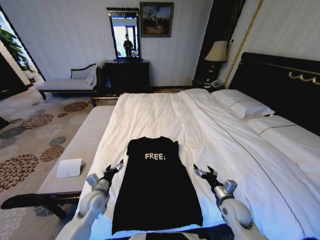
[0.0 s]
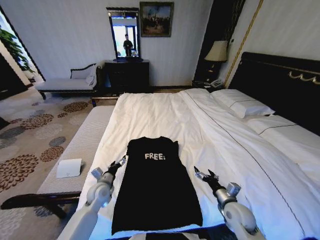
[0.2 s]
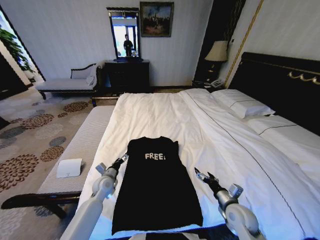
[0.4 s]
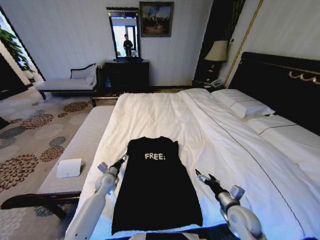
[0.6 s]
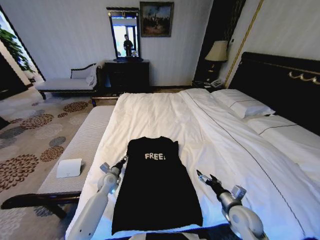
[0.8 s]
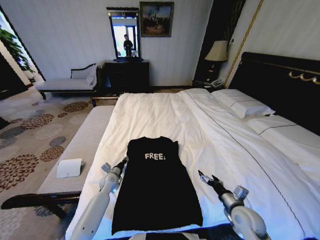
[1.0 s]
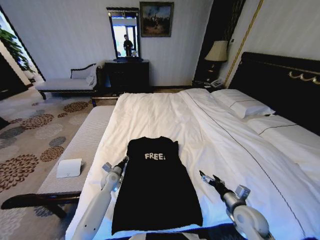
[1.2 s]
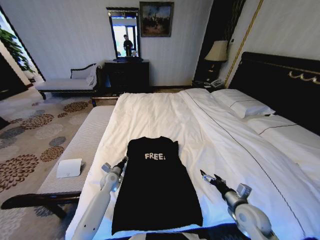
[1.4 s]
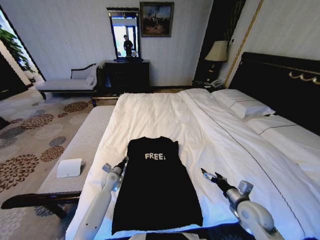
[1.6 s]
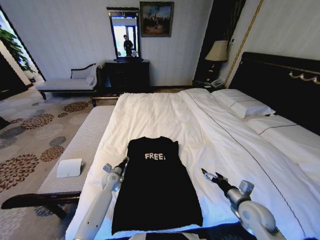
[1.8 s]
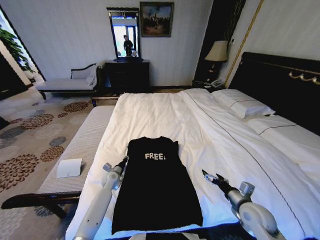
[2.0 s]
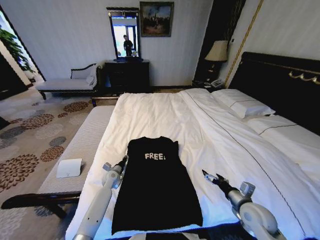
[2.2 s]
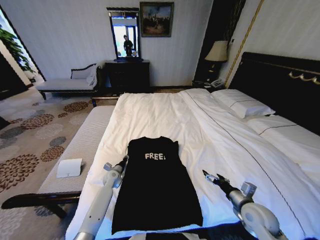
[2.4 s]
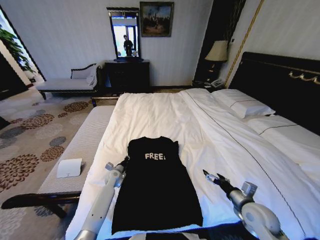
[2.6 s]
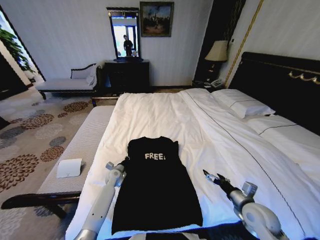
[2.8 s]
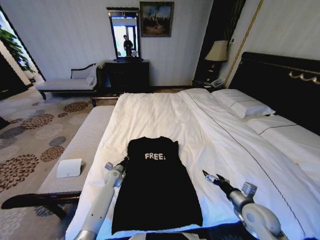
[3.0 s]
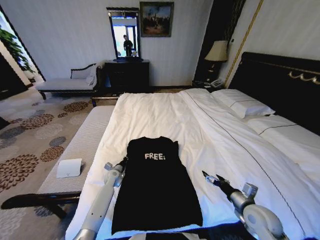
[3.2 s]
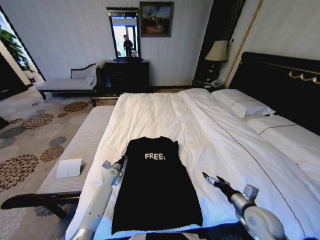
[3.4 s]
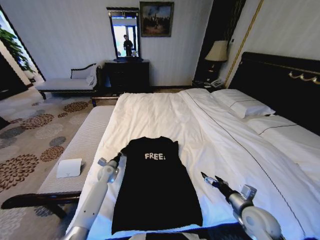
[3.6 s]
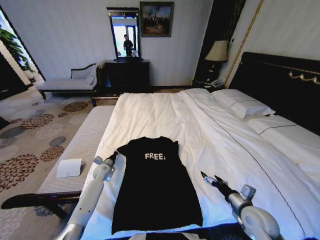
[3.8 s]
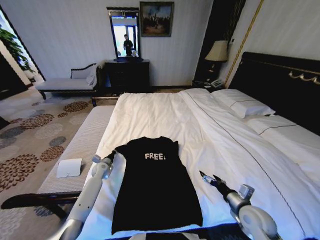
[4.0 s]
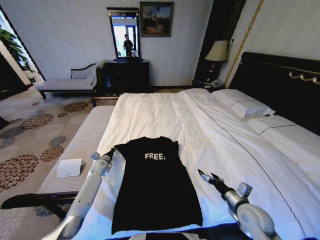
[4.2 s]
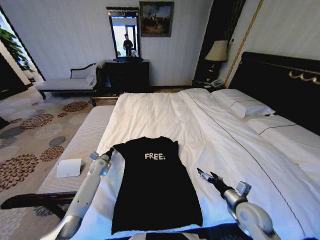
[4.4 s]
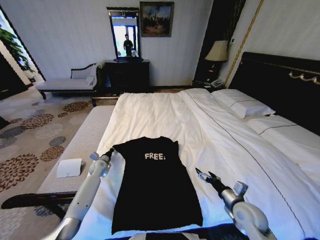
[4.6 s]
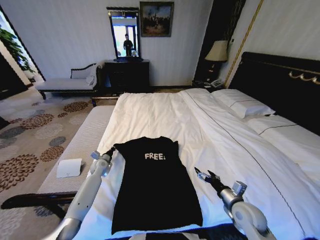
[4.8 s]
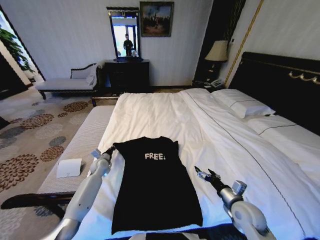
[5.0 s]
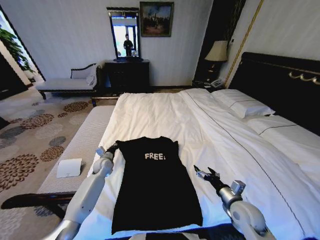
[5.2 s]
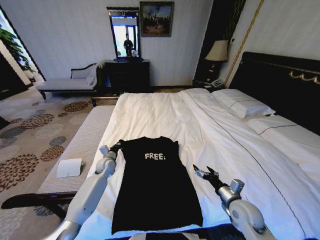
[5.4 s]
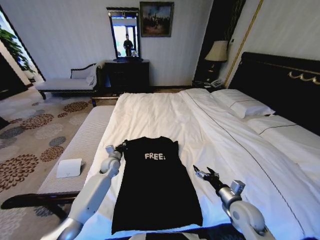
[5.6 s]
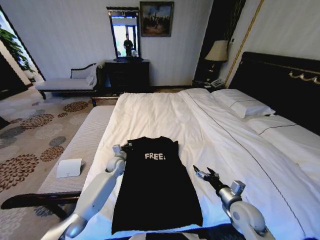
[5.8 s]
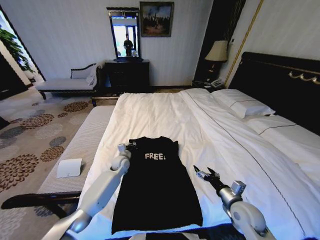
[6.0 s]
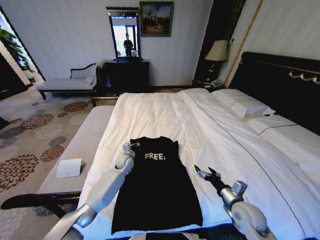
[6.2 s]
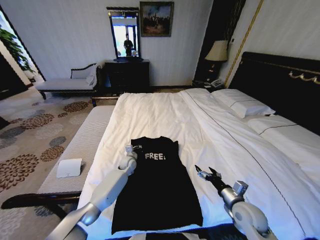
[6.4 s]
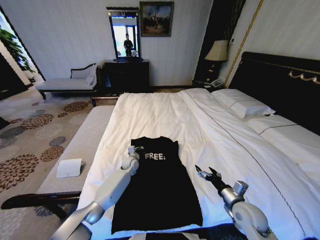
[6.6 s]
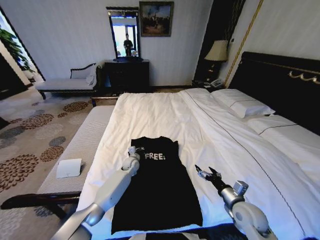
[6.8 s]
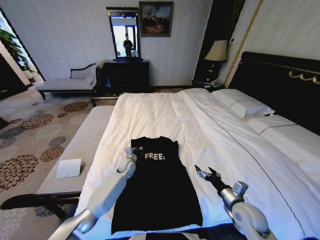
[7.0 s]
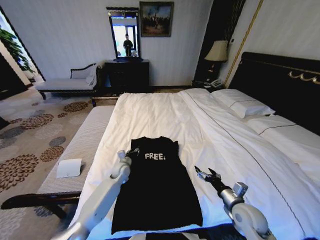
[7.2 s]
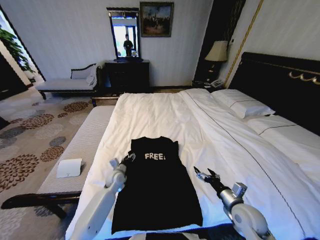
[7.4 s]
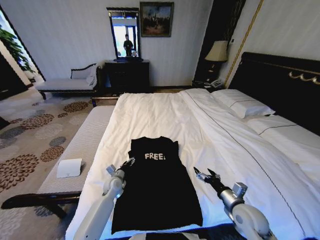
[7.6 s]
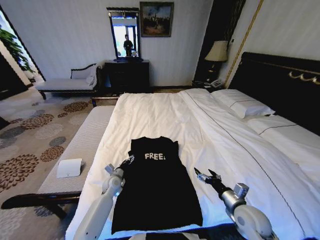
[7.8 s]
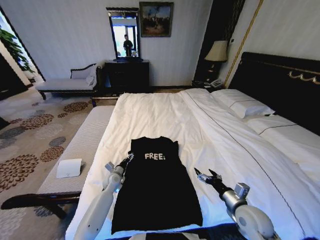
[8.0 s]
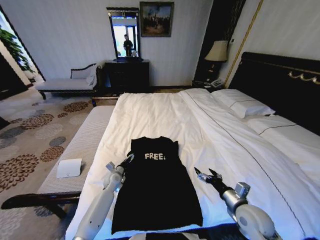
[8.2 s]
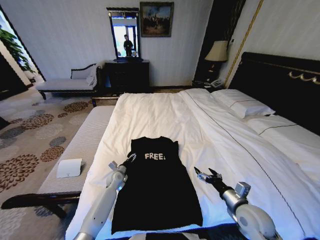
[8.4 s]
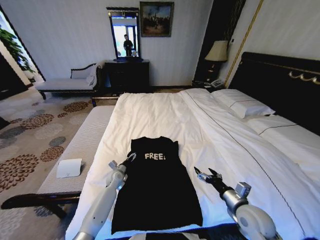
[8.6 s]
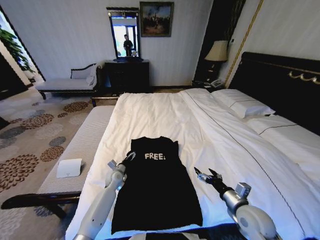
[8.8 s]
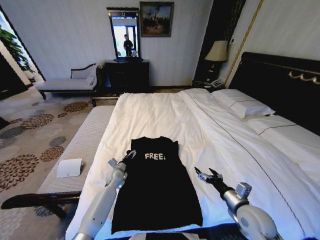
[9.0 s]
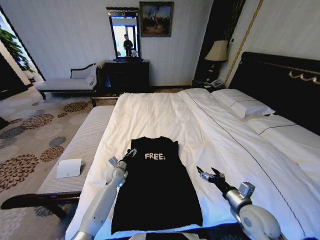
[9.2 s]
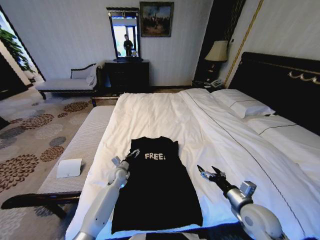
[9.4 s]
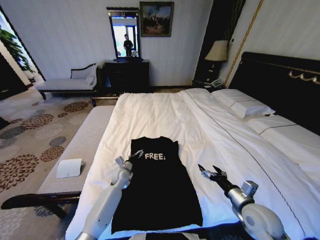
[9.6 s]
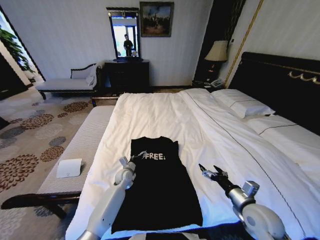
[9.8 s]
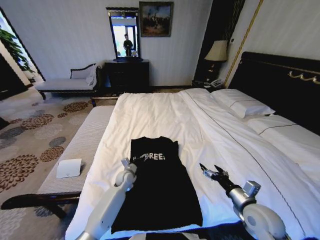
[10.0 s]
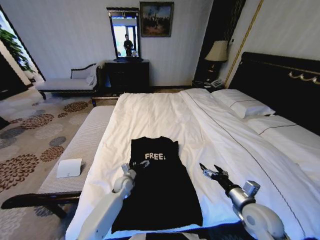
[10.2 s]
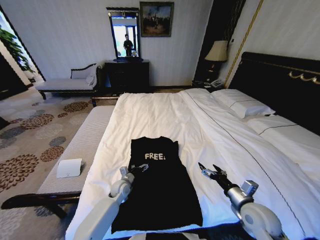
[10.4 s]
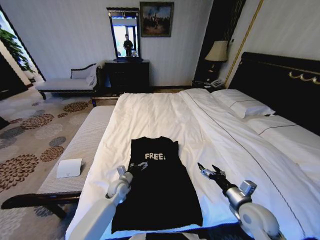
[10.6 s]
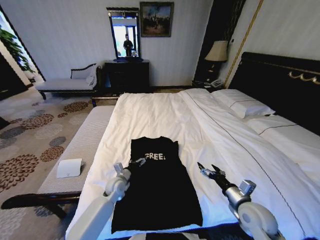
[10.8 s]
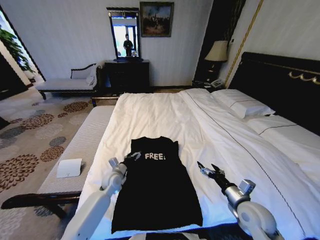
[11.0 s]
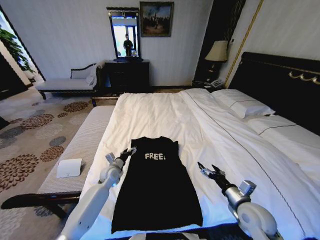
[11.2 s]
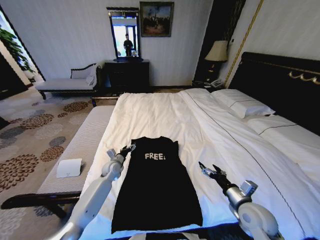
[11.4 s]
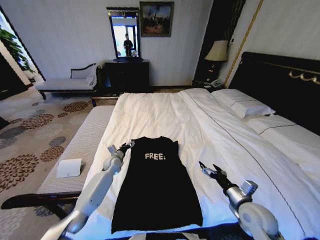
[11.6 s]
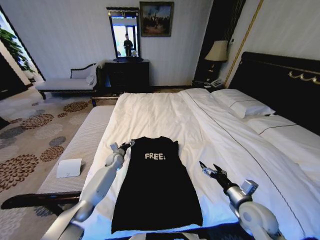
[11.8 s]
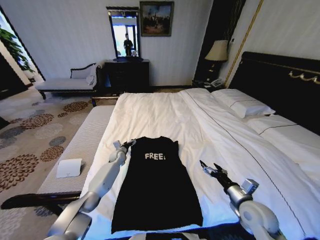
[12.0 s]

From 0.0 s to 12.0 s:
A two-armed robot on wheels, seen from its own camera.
Task of the whole recording: Fold the clothes on the bed.
From 0.0 s to 1.6 s: The left gripper moves forward and downward, roughly 15 cm, and closes; the right gripper ends up some 5 cm from where it was.
From 1.6 s to 3.0 s: The left gripper closes.
From 3.0 s to 4.4 s: The left gripper heads to the left, covering roughly 10 cm.
From 4.4 s to 6.0 s: The left gripper heads to the right, covering roughly 15 cm.
From 6.0 s to 7.6 s: The left gripper is displaced backward and downward by approximately 10 cm, and opens up.
From 7.6 s to 9.0 s: There are only small adjustments of the grippers.
From 9.0 s to 10.4 s: The left gripper shifts some 5 cm backward.
From 10.4 s to 12.0 s: The left gripper shifts approximately 20 cm forward.

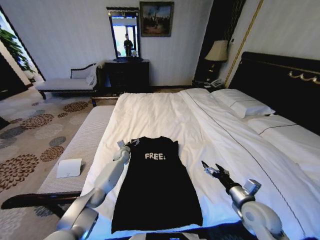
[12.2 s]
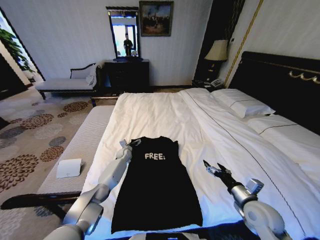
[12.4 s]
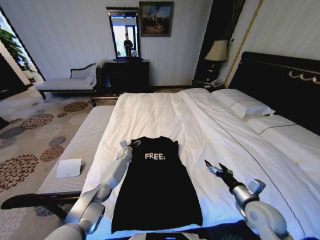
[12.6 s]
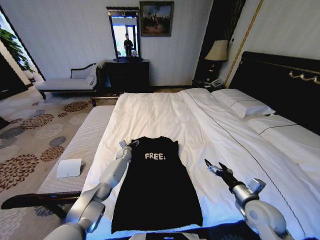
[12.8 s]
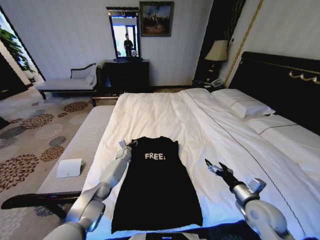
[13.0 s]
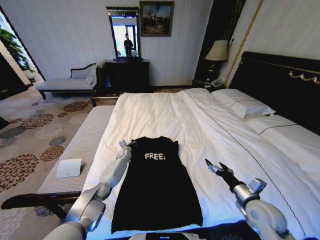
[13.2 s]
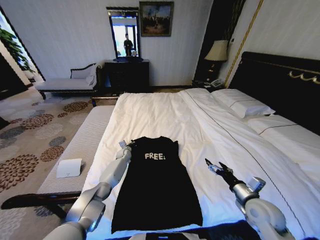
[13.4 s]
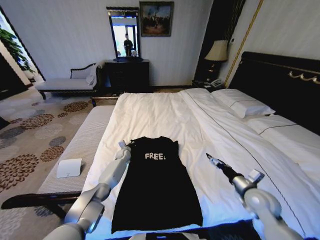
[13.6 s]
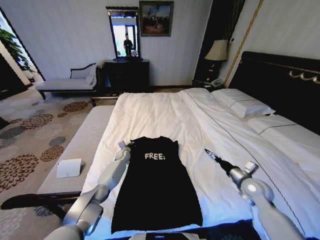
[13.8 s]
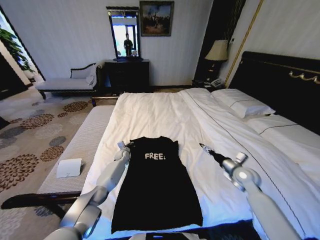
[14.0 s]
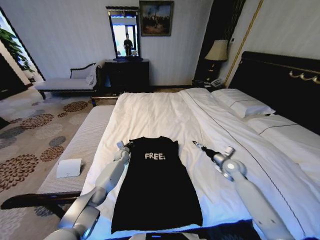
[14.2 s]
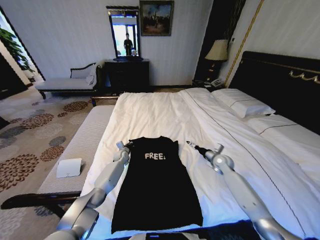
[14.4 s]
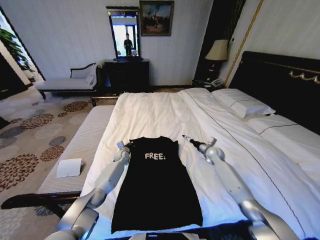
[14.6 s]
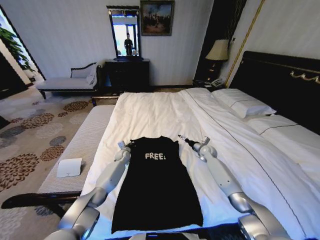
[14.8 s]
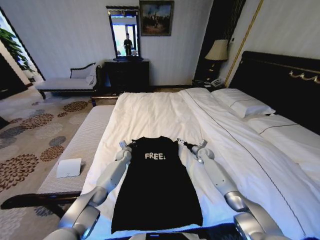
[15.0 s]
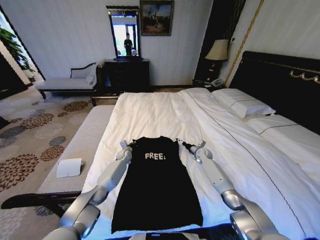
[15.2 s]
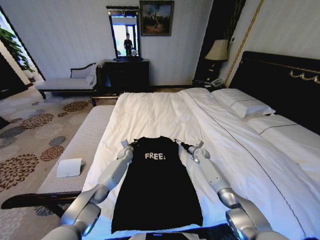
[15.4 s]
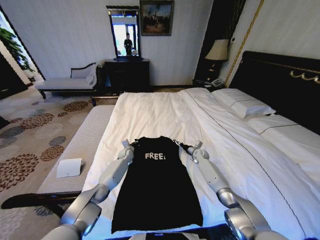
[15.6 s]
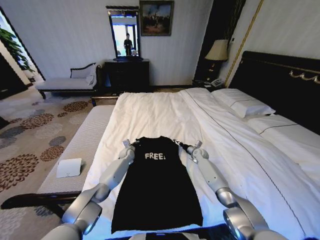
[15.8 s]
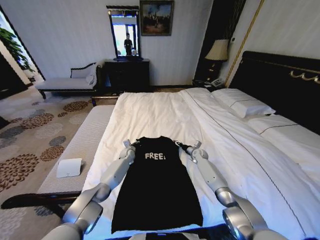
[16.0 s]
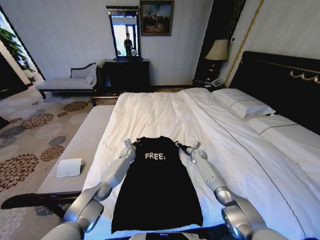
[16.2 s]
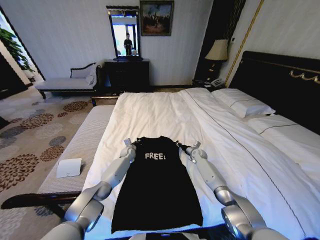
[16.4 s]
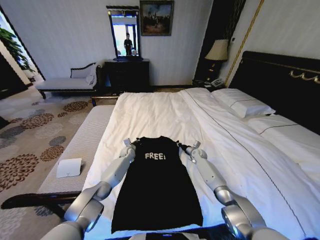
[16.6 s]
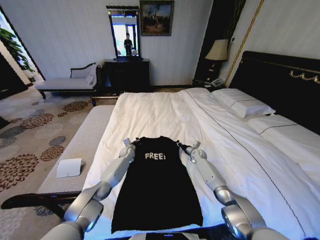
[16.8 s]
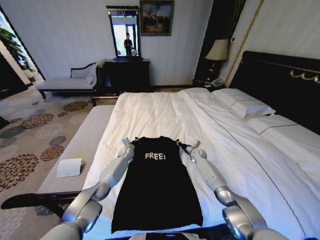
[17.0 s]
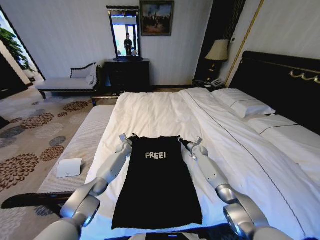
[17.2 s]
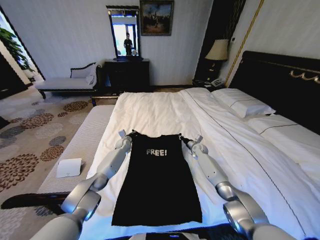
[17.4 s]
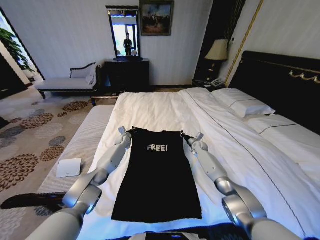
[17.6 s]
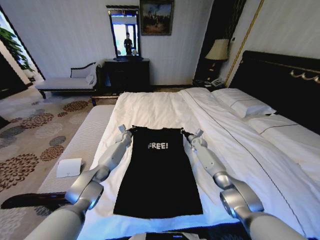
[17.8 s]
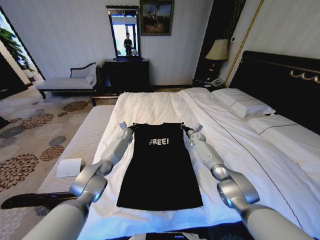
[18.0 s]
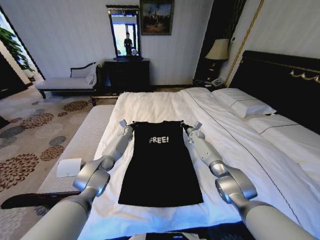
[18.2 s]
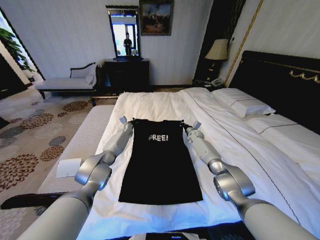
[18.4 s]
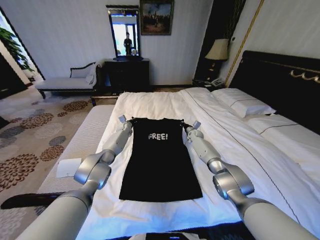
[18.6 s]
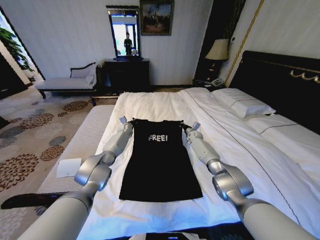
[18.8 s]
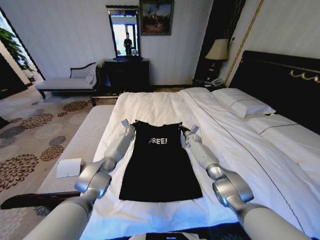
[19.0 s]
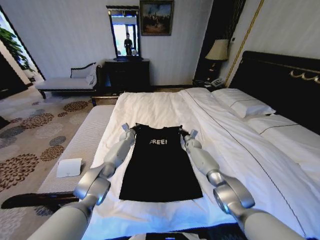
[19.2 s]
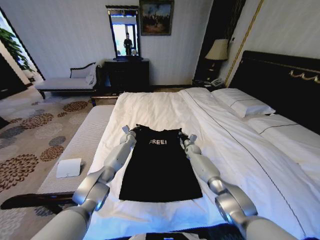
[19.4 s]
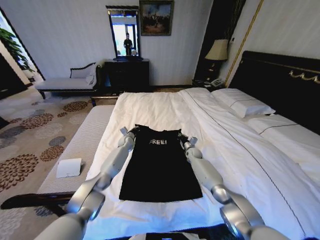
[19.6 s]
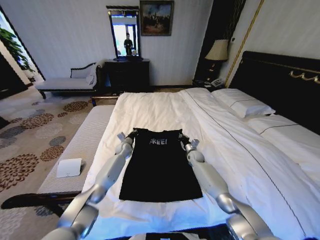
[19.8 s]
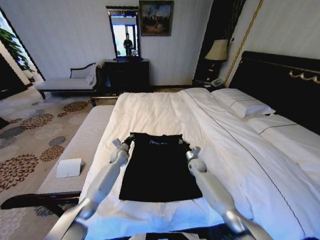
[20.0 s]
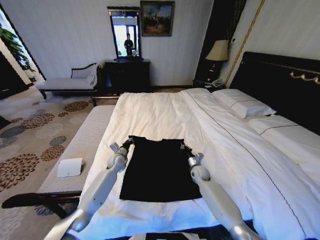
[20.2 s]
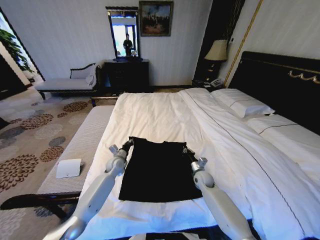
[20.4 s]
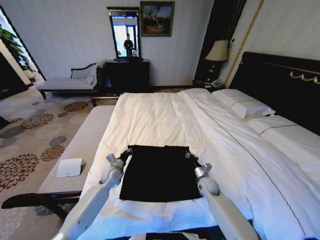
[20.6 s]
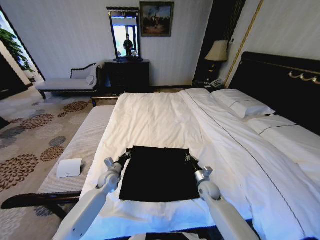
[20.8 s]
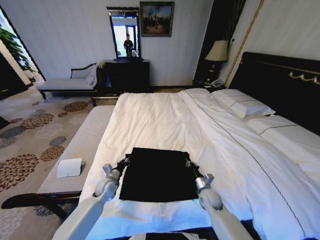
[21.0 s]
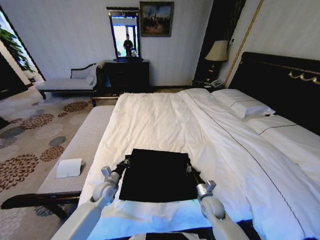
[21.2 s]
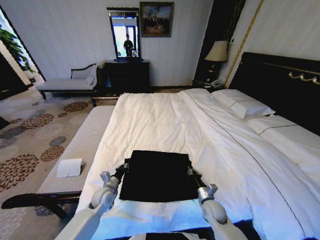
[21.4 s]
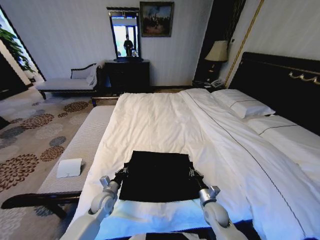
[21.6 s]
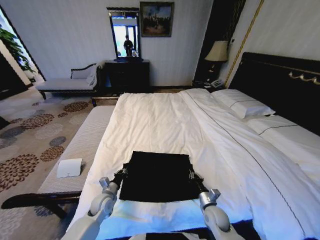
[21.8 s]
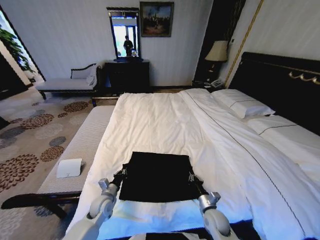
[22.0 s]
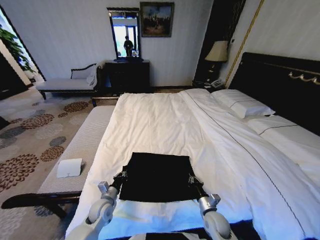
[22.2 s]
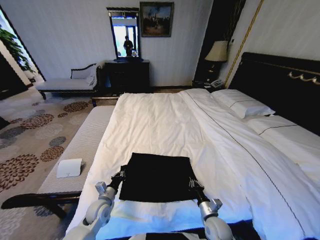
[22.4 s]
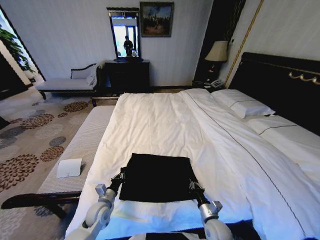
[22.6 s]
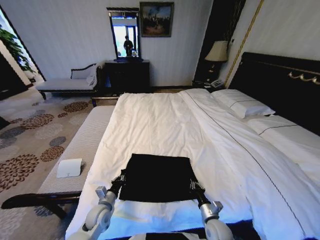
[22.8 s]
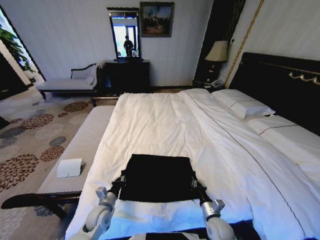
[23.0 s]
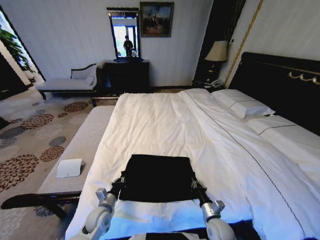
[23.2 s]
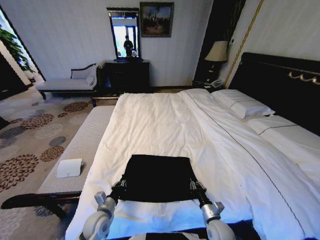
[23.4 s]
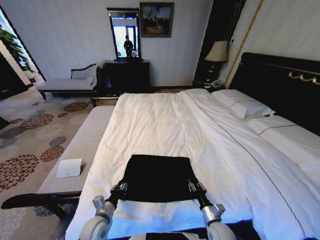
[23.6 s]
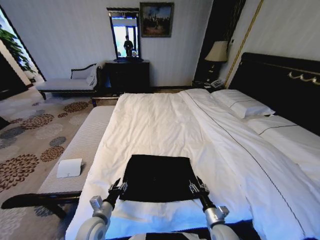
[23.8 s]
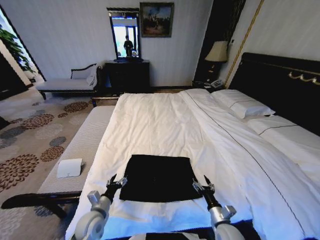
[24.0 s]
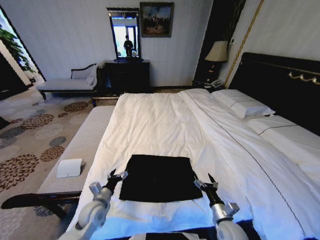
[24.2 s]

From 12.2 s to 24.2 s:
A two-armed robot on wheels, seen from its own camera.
Task of the whole recording: Fold the clothes on the bed.
From 12.2 s to 13.8 s: The left gripper closes its fingers; the right gripper heads forward and to the right, covering some 10 cm.
From 13.8 s to 15.2 s: The right gripper is displaced forward and downward by about 30 cm.
From 15.2 s to 16.6 s: The right gripper closes up.
From 16.6 s to 18.2 s: Both grippers move forward and upward, approximately 15 cm.
From 18.2 s to 19.8 s: The left gripper shifts approximately 10 cm backward. The right gripper travels backward and downward by roughly 15 cm.
From 19.8 s to 21.2 s: Both grippers travel together backward, roughly 25 cm.
From 21.2 s to 22.6 s: The grippers both shift backward by approximately 10 cm.
From 22.6 s to 24.2 s: The left gripper opens; the right gripper moves approximately 5 cm, and opens its fingers.
